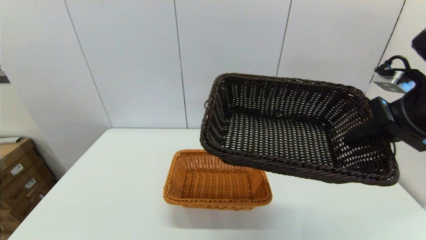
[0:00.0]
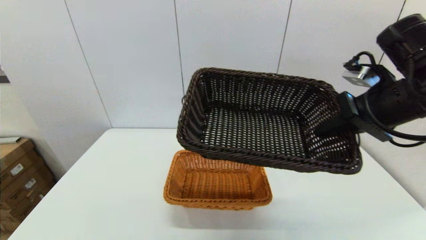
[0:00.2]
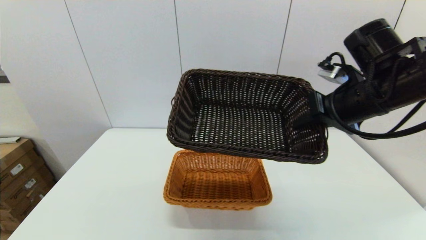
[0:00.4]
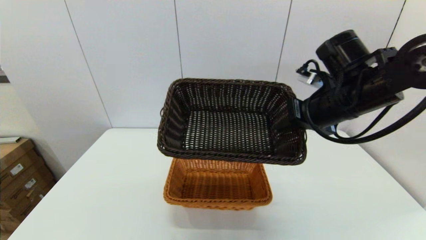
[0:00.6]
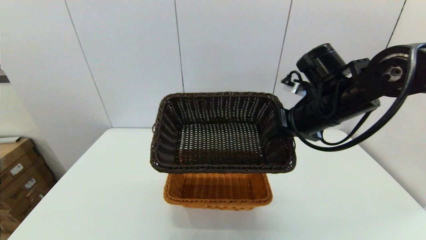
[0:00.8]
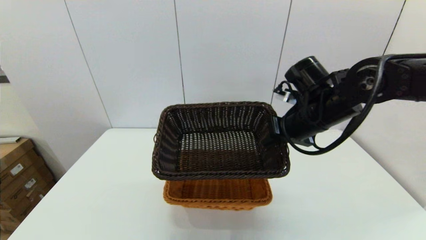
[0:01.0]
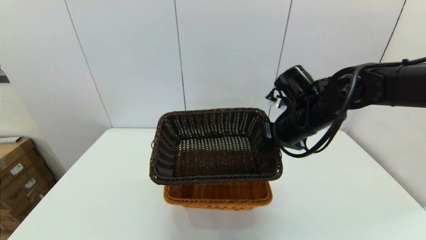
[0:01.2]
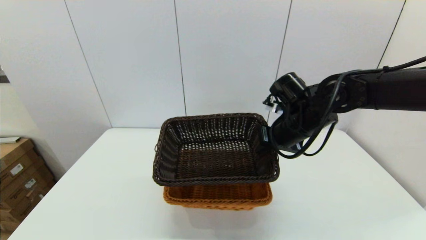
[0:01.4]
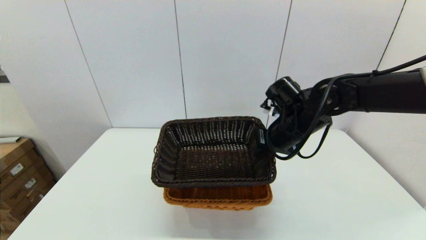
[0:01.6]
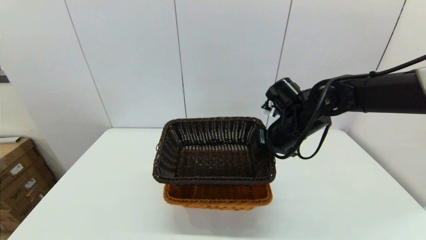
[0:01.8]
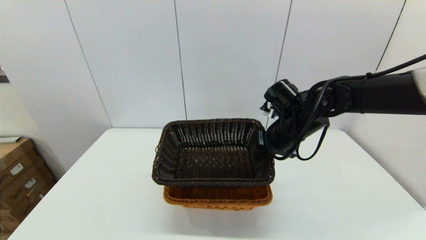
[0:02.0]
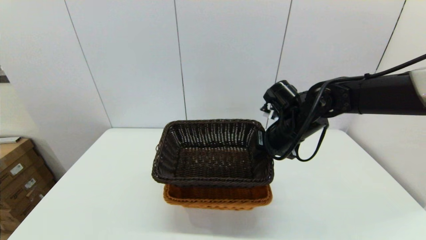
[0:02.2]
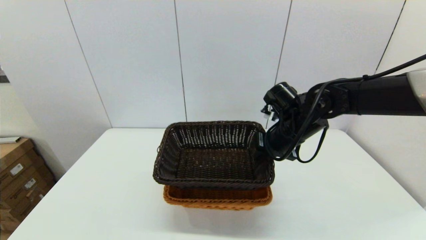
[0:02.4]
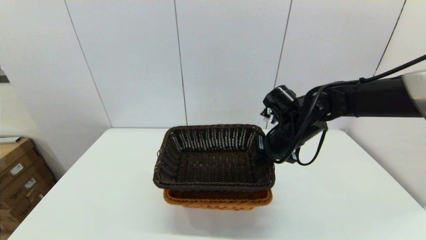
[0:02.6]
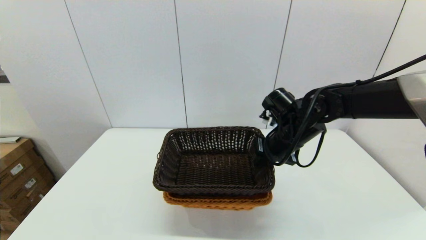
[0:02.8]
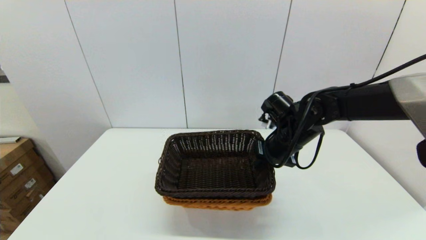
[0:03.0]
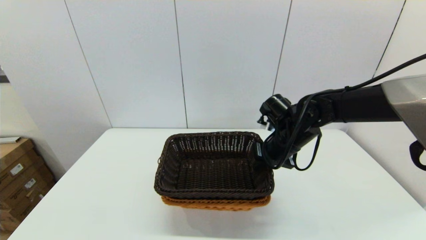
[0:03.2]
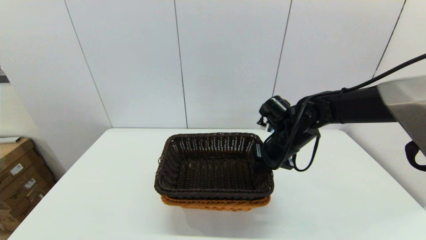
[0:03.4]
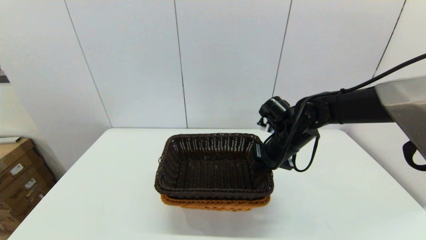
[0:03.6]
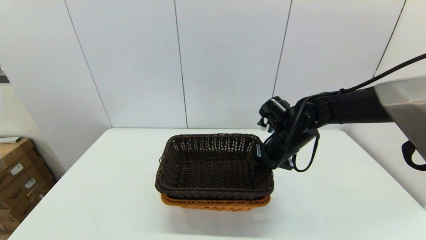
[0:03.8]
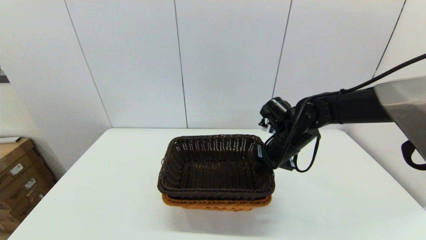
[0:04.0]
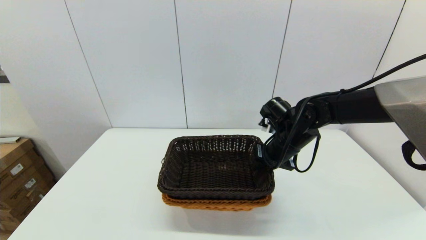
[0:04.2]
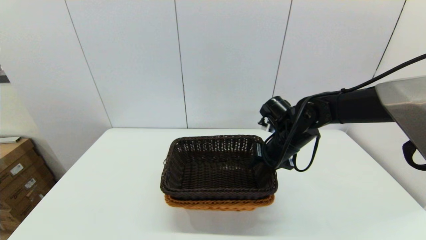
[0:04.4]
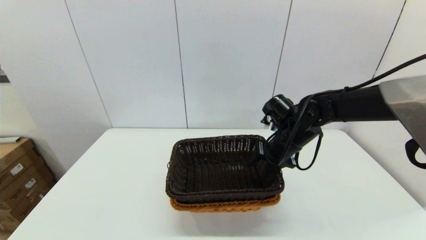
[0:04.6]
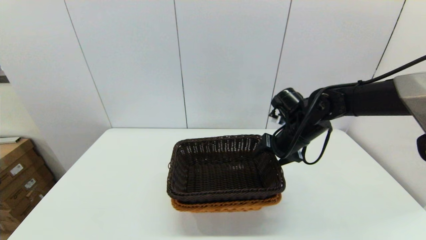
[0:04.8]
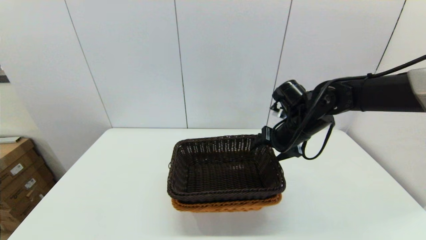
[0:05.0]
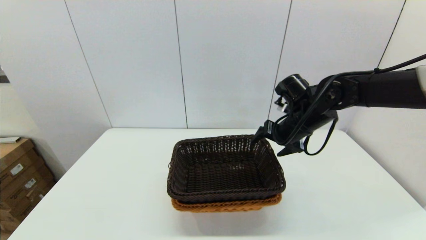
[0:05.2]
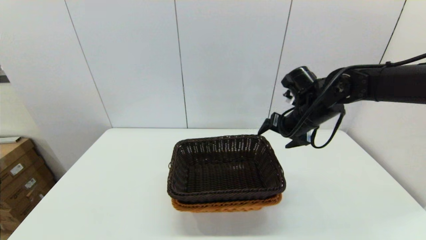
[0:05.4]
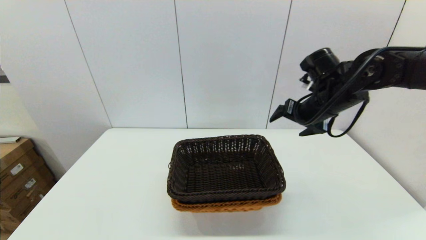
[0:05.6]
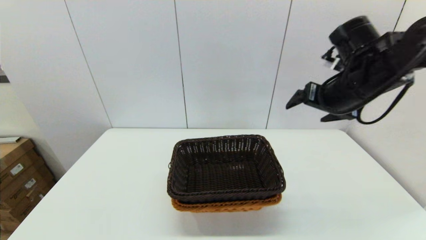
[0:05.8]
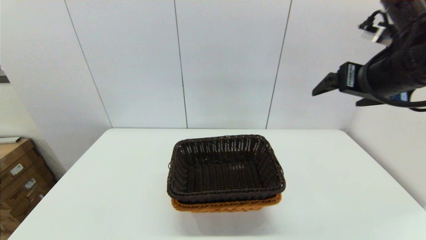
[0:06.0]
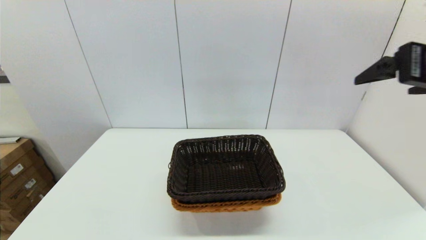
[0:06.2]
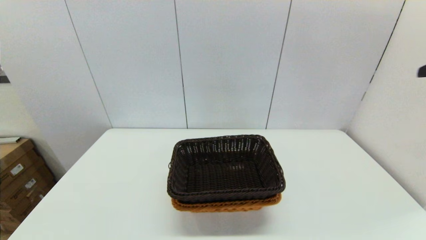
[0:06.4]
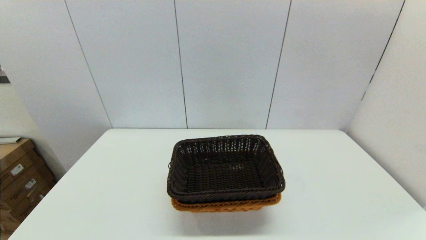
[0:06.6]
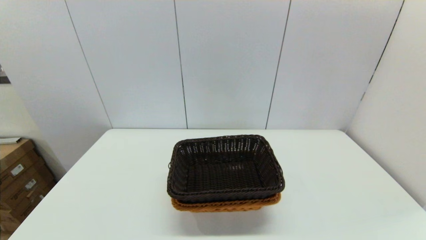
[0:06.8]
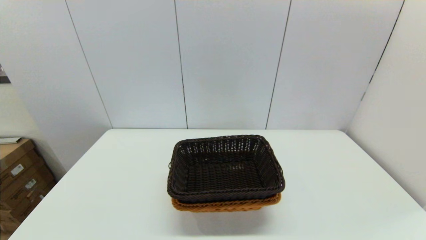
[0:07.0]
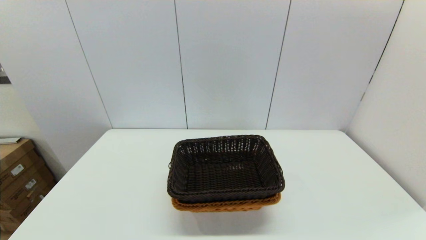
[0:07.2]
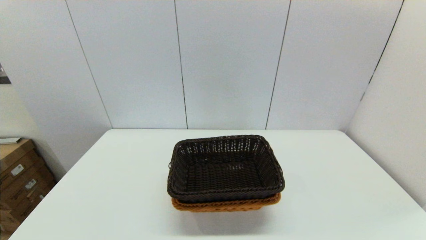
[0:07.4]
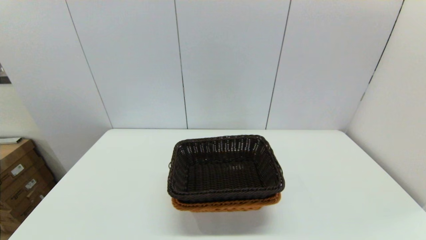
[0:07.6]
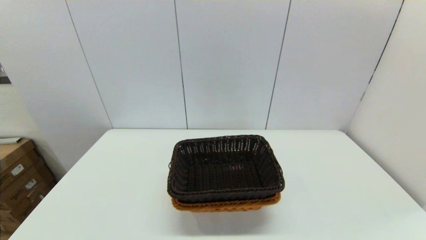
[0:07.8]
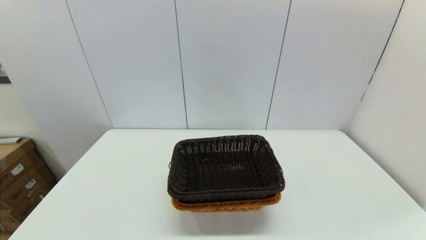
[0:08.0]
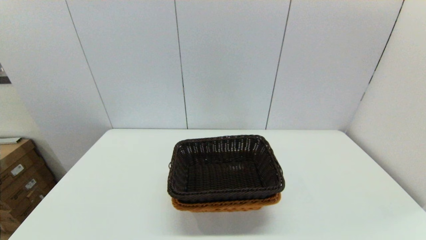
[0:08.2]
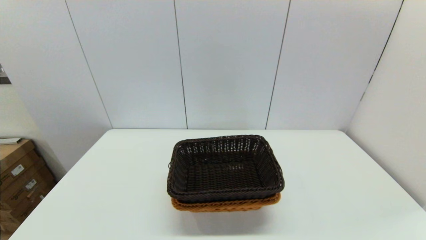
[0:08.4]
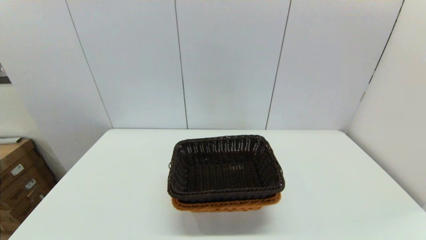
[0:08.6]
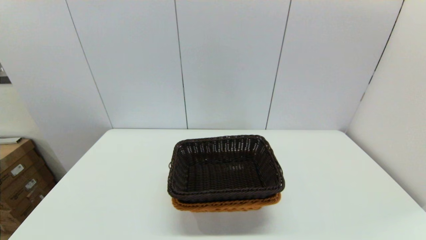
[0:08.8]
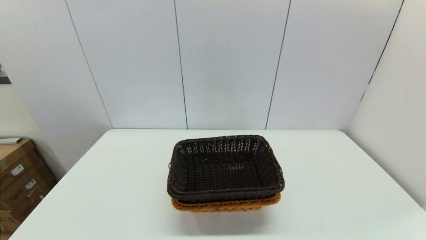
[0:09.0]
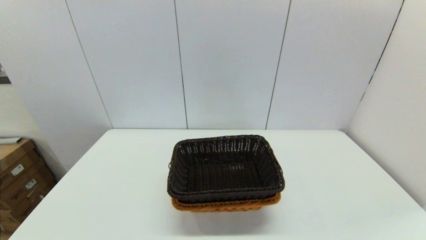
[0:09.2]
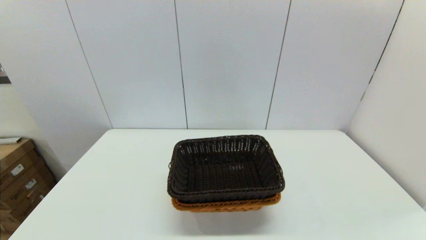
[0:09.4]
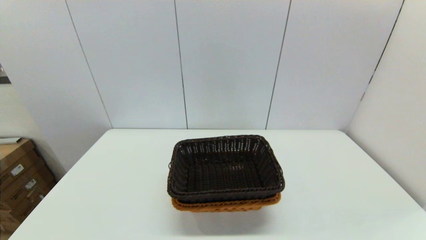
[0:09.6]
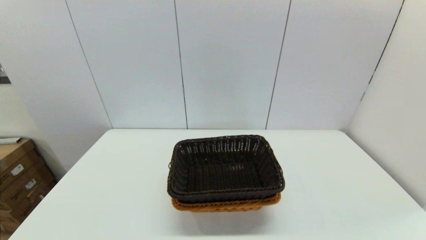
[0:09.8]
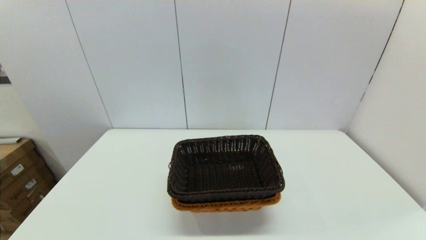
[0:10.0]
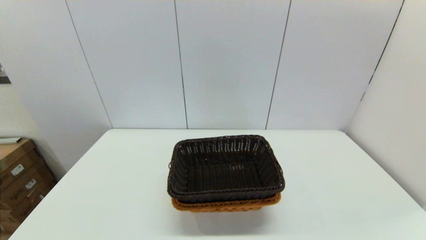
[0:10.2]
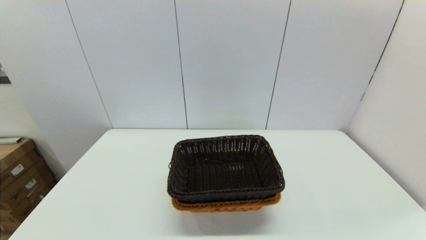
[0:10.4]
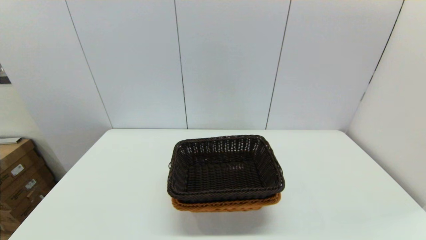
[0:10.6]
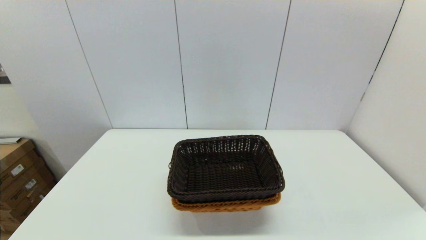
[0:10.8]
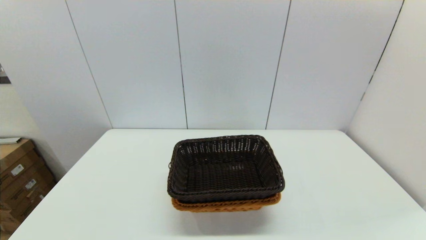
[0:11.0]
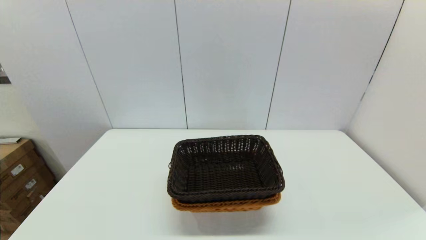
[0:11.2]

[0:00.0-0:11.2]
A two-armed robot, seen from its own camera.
Task of the whole recording: stack a basket on top of another basket.
Step, 0:00.0 to 0:05.2: Place the dark basket into the light color basket with the right gripper.
0:00.0 to 0:01.6: The right gripper shifts about 20 cm to the left, forward and downward.
0:01.6 to 0:03.2: There are only small adjustments of the grippers.
0:03.2 to 0:04.8: The right gripper opens.
0:04.8 to 0:06.4: The right gripper is displaced upward, backward and to the right by some 35 cm.
0:09.6 to 0:11.2: Neither gripper changes place.
